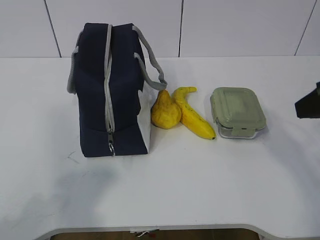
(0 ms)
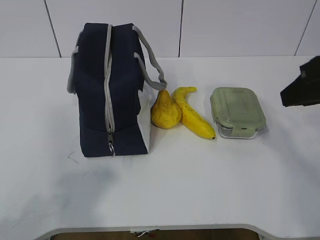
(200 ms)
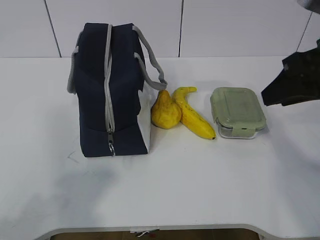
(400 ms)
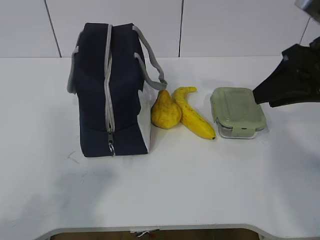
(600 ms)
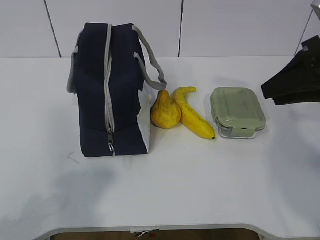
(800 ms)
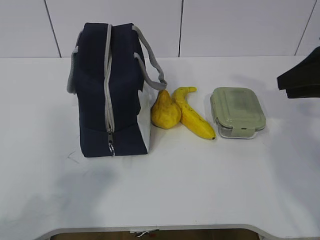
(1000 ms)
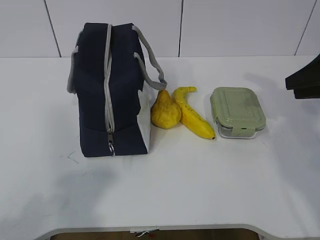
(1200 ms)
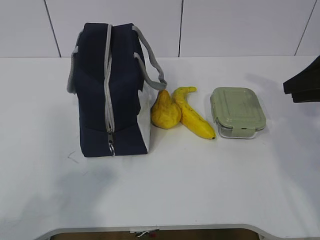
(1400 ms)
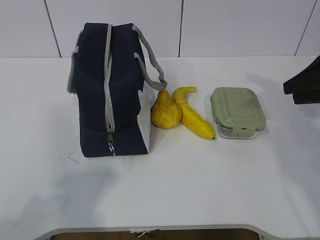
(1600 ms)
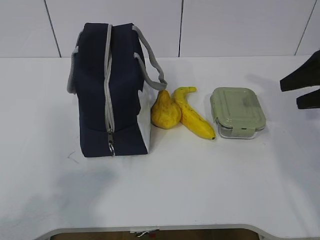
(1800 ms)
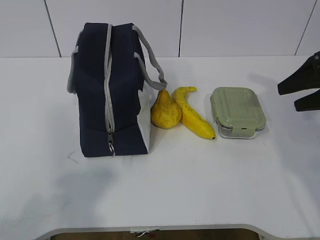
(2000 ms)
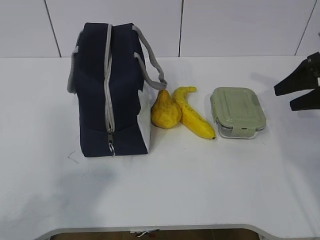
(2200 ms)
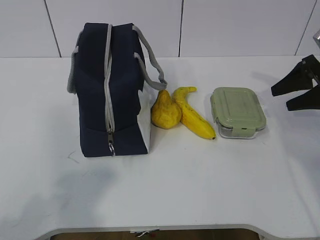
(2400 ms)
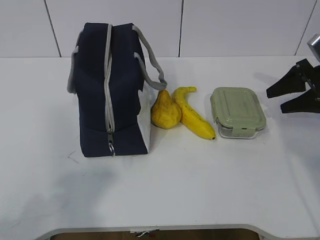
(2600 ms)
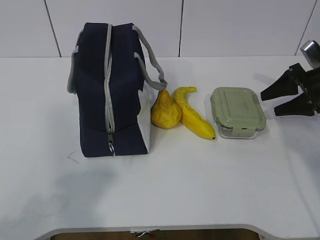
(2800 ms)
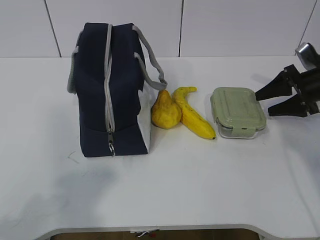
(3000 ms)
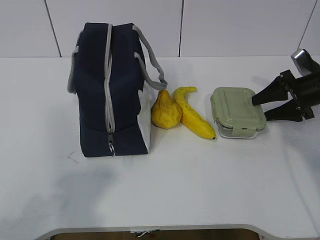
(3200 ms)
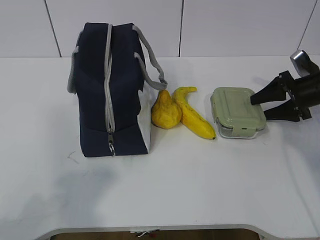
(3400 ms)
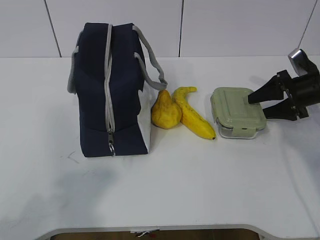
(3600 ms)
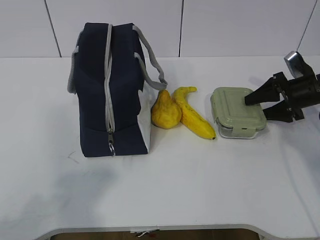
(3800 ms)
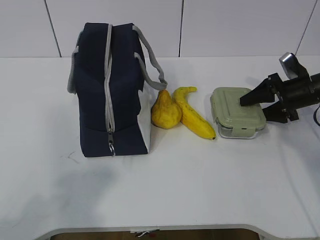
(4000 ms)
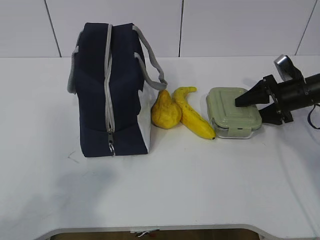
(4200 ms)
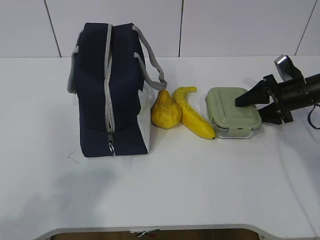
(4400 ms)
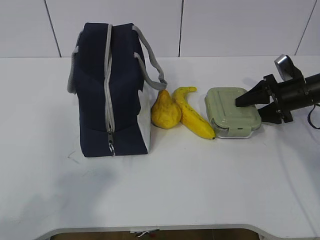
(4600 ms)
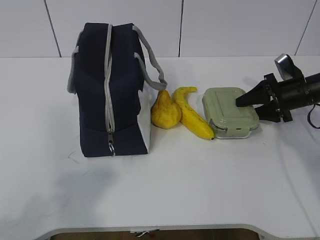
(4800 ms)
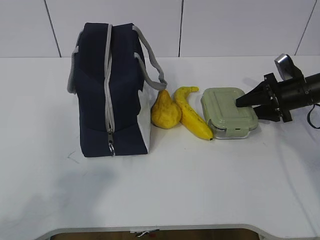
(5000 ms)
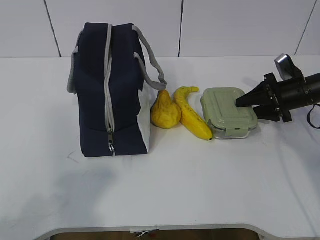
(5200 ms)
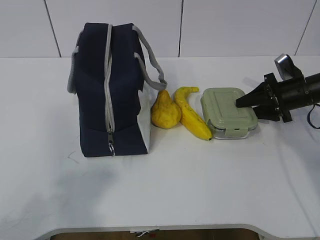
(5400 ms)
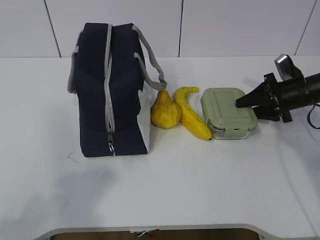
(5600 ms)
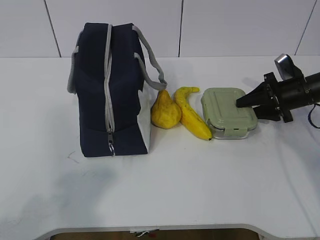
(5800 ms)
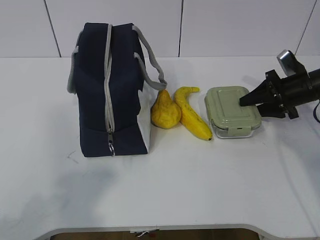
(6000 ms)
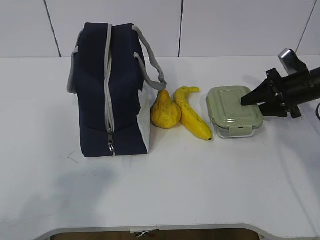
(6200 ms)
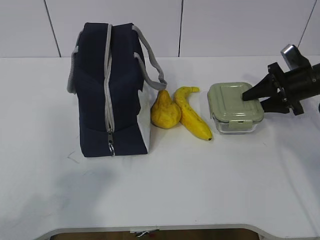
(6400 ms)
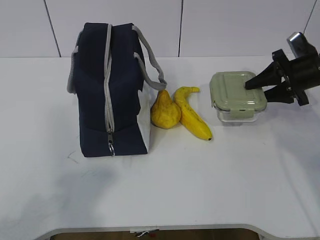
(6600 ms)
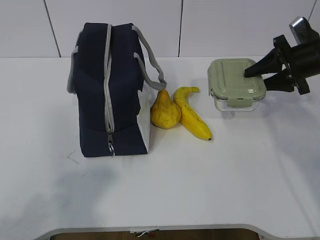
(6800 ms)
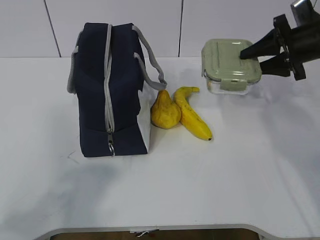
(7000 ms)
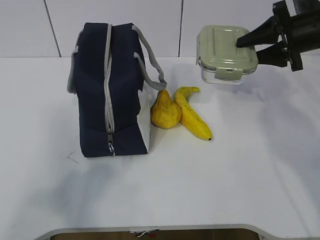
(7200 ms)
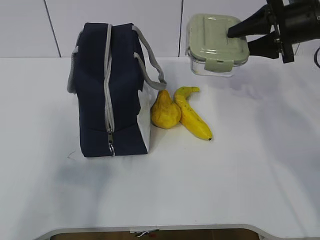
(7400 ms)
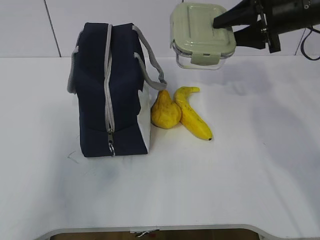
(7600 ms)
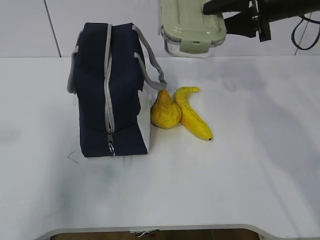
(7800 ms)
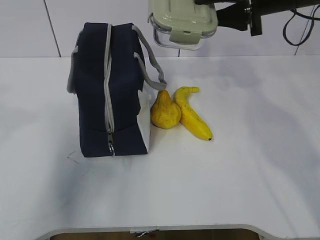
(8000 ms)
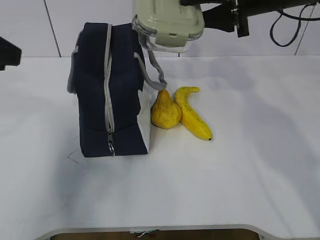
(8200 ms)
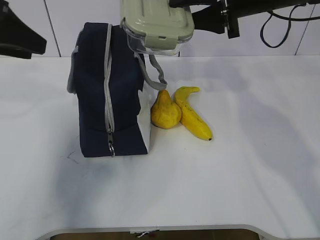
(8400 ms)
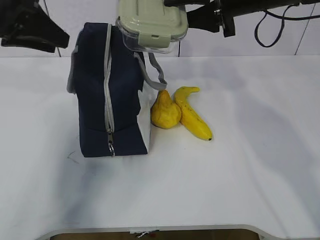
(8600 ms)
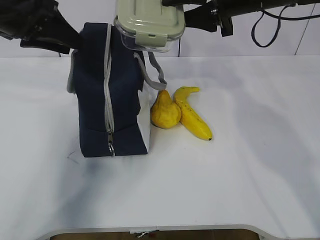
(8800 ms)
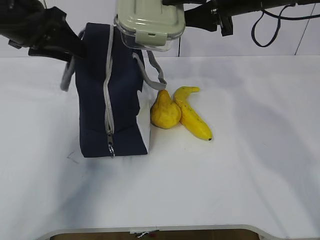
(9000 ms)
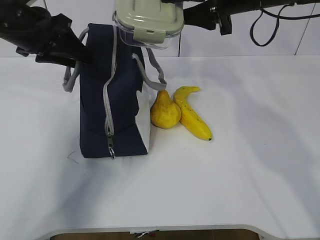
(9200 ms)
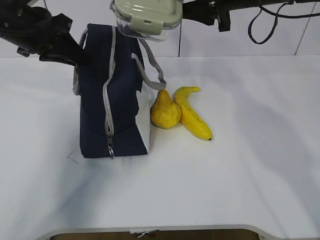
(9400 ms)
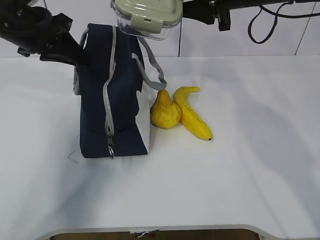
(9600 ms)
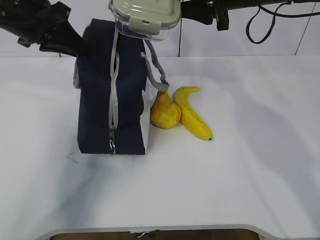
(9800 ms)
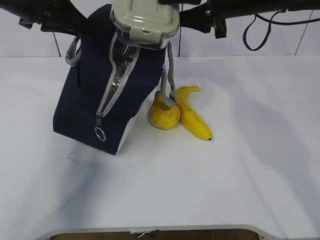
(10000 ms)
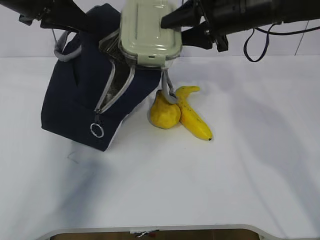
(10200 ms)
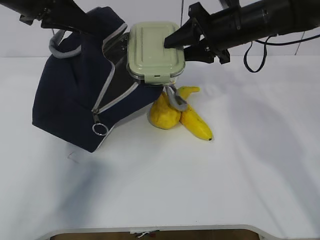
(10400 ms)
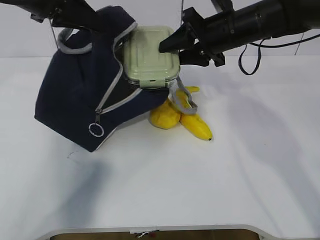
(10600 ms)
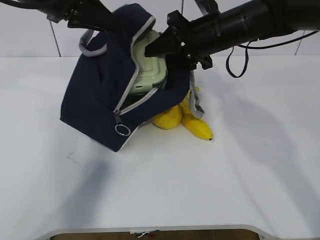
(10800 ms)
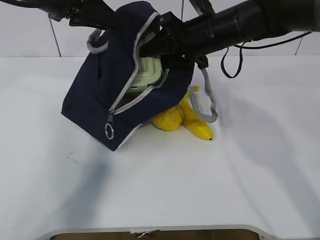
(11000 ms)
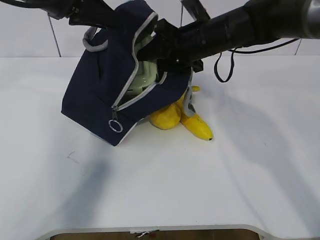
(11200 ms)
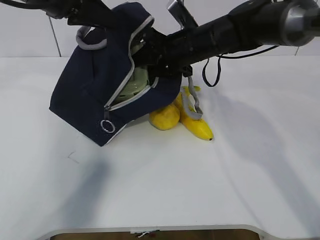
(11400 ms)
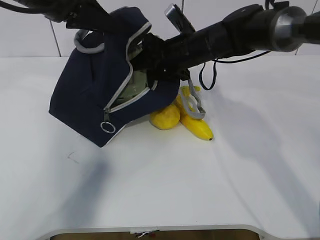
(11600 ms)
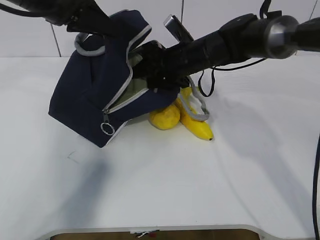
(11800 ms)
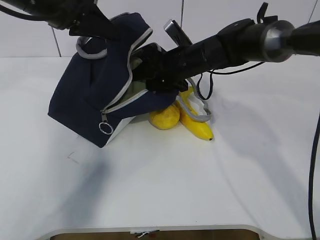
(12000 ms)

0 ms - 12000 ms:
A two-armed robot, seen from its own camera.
Step, 0 ms - 4200 ms: Grab the lunch box with your right hand.
Step, 4600 ms - 7800 ms: Grab the lunch bag with your left hand.
Step, 8000 ms - 11600 ms: Place it into the bag with your right hand.
0 ms - 1600 ms: The right gripper travels forward, to the right and downward by roughly 15 cm.
1600 ms - 3000 ms: The right gripper moves downward and forward, roughly 15 cm, and opens up.
3000 ms - 4400 ms: The right gripper changes place by roughly 5 cm.
4400 ms - 6000 ms: The grippers stay close to where they were, moving slightly.
6000 ms - 7600 ms: The left gripper goes roughly 10 cm forward and upward, while the right gripper goes about 20 cm upward and to the left.
7600 ms - 9000 ms: The right gripper is displaced to the left by roughly 10 cm. Meanwhile the left gripper heads forward, covering roughly 30 cm.
9000 ms - 10400 ms: The right gripper travels downward by some 5 cm. The left gripper closes.
10400 ms - 12000 ms: The right gripper travels downward and to the left by roughly 10 cm.

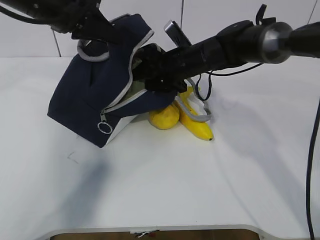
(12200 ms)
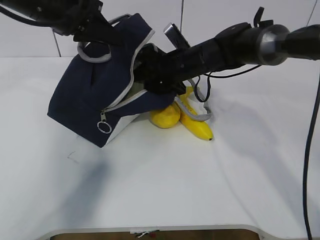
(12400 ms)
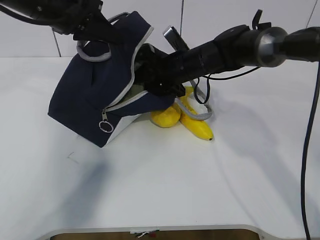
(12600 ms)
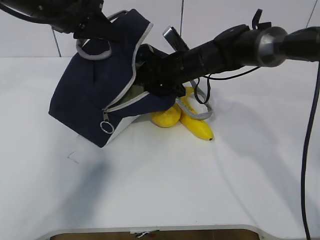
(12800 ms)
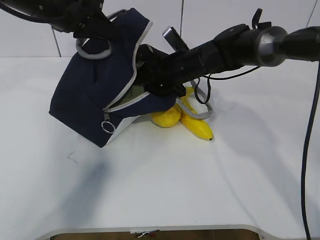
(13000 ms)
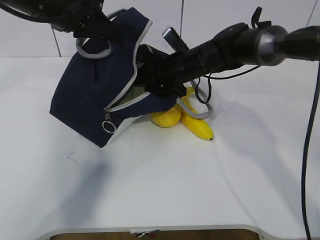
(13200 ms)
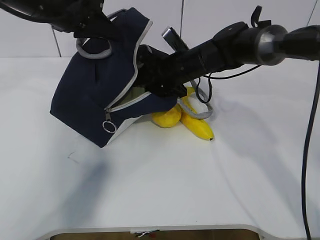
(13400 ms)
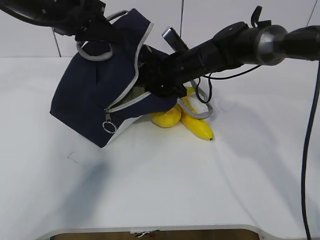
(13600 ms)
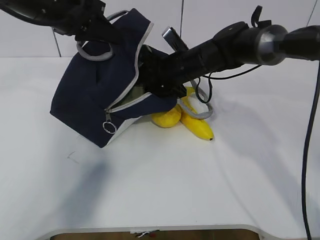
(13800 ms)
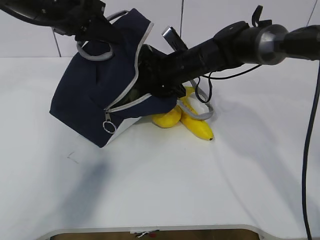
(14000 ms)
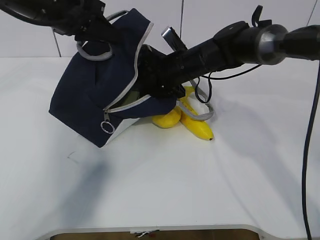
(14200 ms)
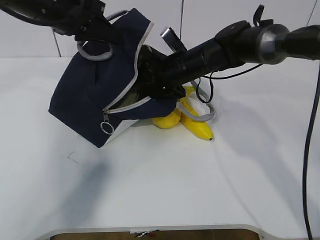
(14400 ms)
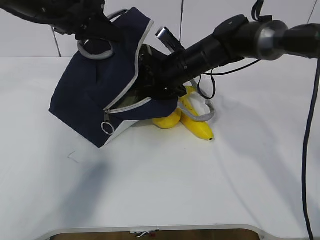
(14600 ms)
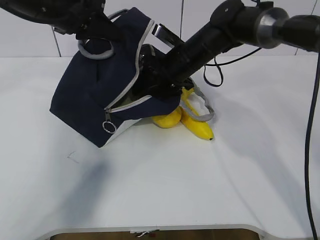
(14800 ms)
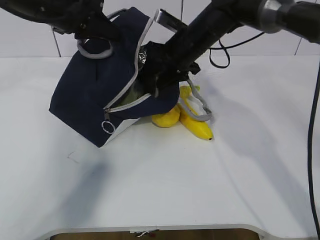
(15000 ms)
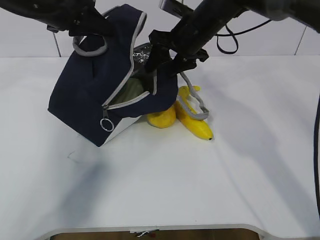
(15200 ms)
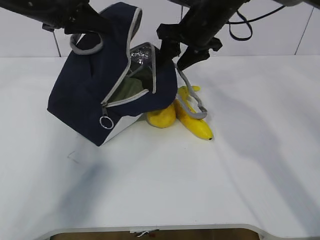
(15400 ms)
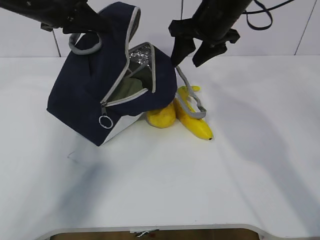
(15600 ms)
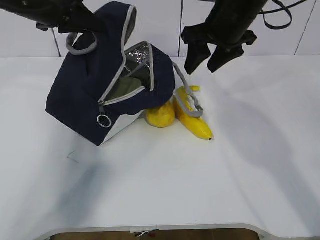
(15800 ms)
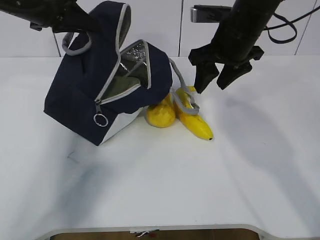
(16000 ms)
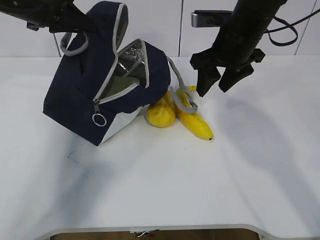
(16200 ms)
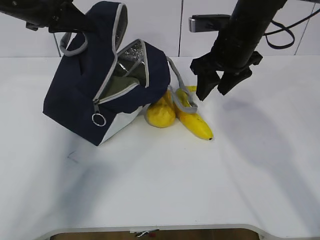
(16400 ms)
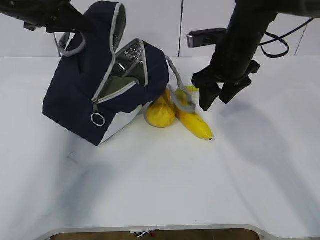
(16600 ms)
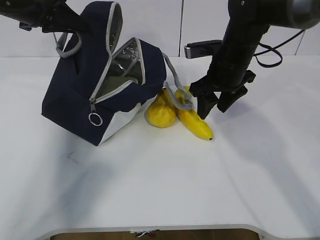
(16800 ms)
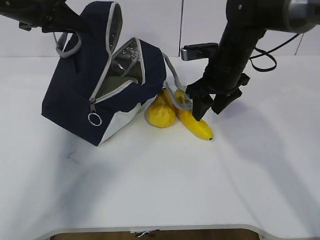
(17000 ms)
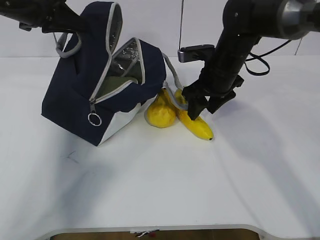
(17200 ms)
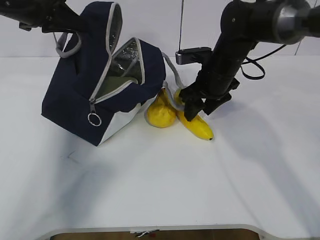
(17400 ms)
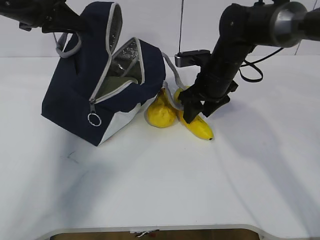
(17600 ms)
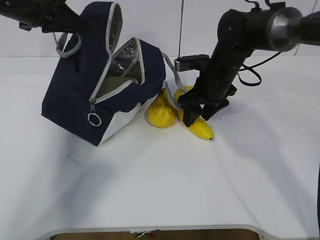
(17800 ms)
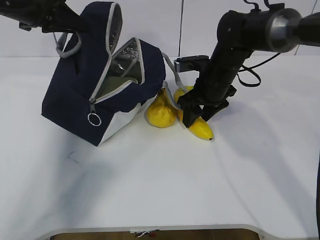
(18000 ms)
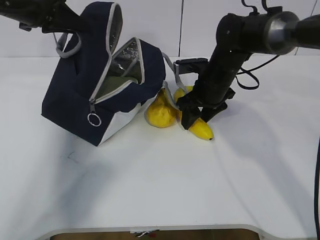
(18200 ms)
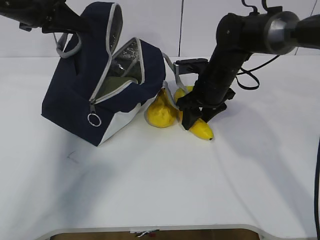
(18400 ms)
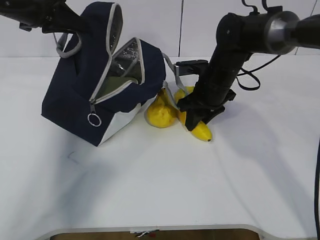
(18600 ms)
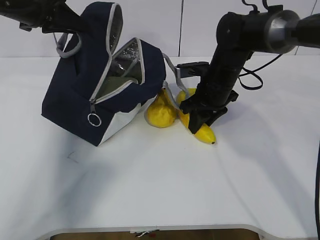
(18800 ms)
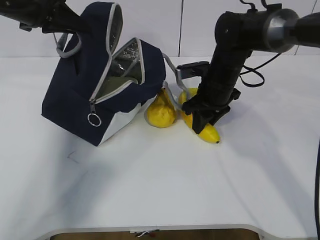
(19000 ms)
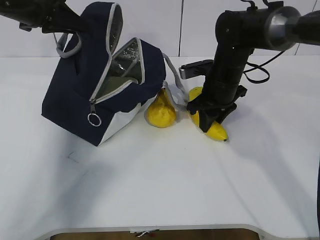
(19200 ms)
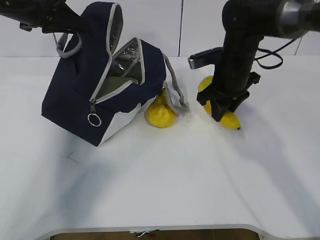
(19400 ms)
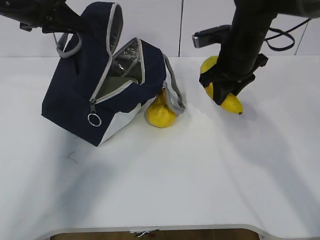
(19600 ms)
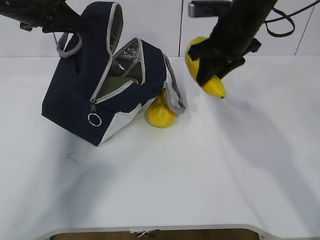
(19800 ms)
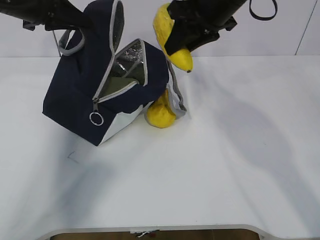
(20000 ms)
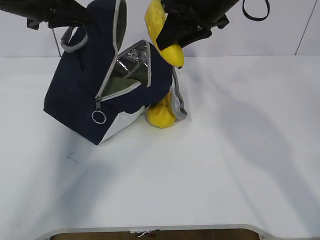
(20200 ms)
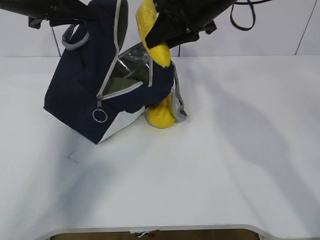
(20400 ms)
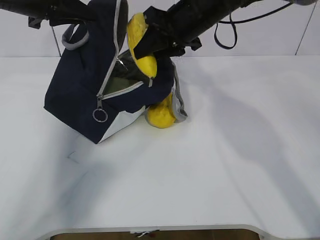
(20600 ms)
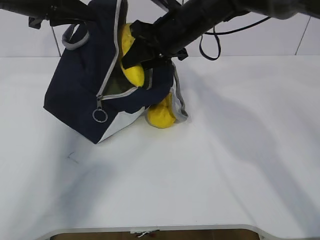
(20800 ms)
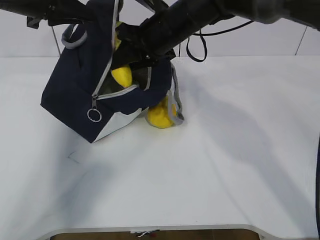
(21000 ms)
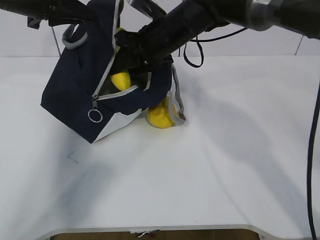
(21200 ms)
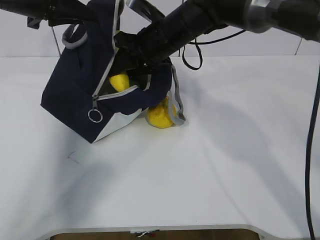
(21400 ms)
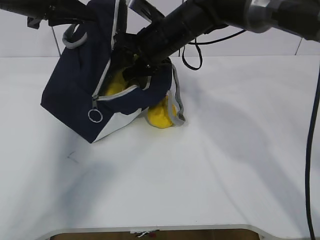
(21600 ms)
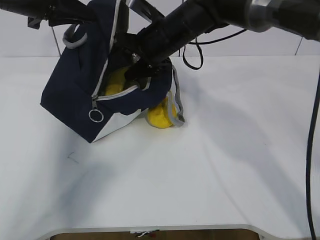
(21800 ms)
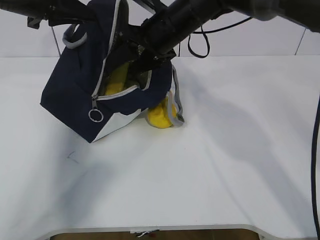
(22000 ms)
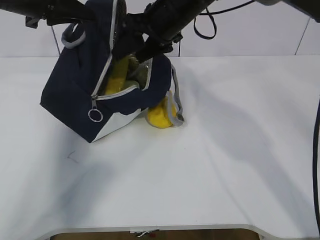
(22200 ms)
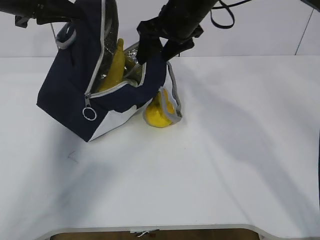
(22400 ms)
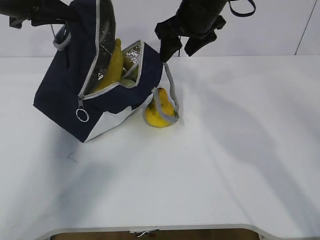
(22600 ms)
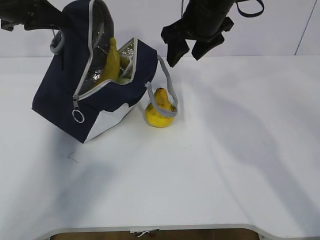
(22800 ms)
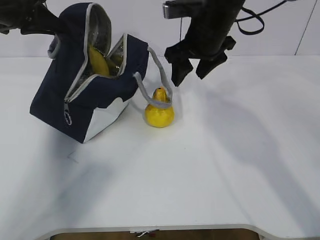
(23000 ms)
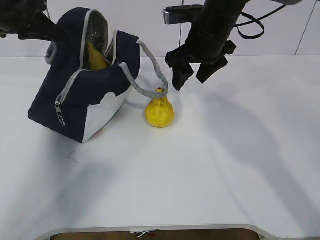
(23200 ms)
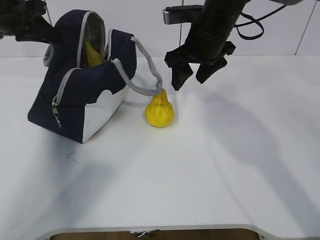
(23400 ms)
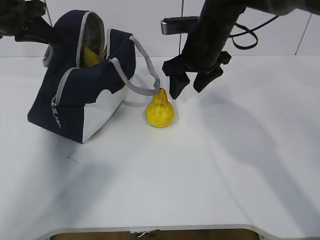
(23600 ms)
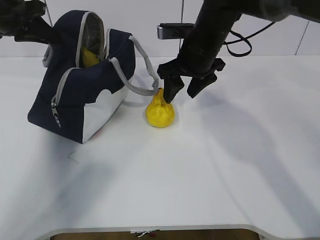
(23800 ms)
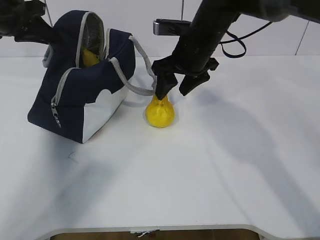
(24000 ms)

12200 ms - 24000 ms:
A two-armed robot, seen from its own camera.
Step, 12200 ms - 15000 ms: Grab the banana with your right hand.
Step, 15200 ms - 17400 ms: Place it into the bag with your right hand.
Step, 17600 ms - 21000 ms: Grab the pear with your right hand.
Step, 21200 ms - 22600 ms: Secure the lunch bag with your left hand.
12200 ms - 13600 ms: The grippers make only small movements.
13600 ms - 15200 ms: The right gripper goes about 10 cm upward.
15200 ms - 16600 ms: The right gripper goes approximately 10 cm backward and to the right.
16600 ms - 18200 ms: The right gripper is displaced downward by some 10 cm.
18200 ms - 19600 ms: The right gripper shifts roughly 5 cm upward, and closes up.
19600 ms - 21000 ms: The right gripper travels to the left by some 10 cm.
21000 ms - 22600 ms: The right gripper shifts some 5 cm to the right, and opens.
22600 ms - 24000 ms: The right gripper shifts about 5 cm downward.
